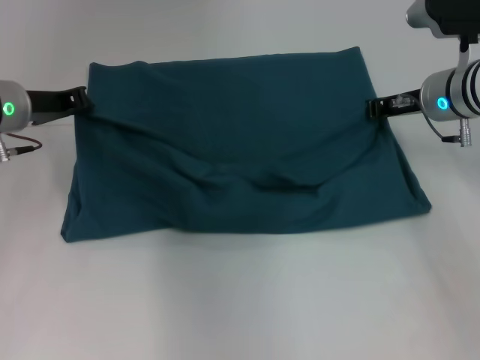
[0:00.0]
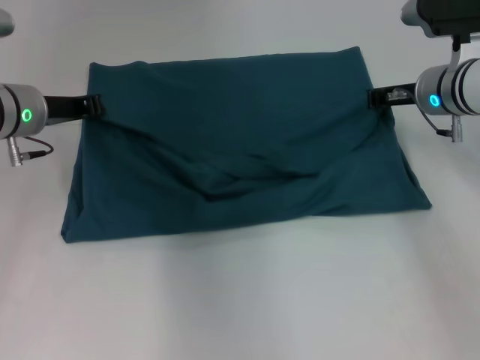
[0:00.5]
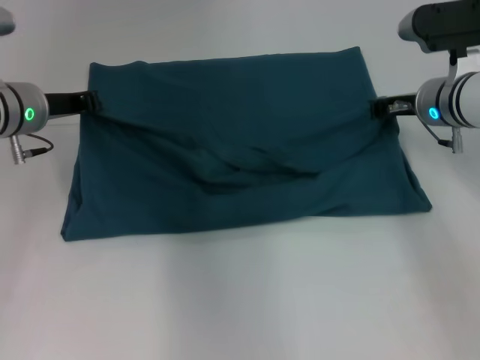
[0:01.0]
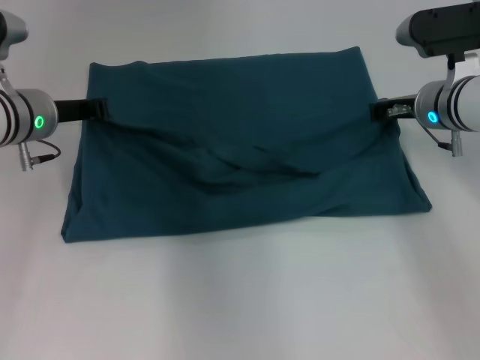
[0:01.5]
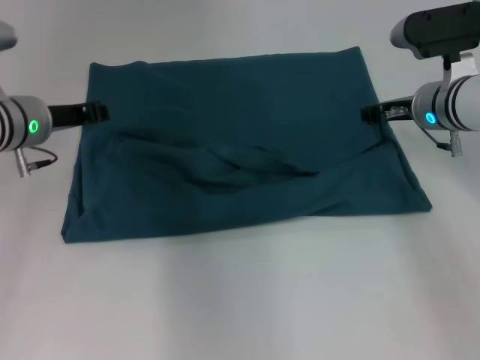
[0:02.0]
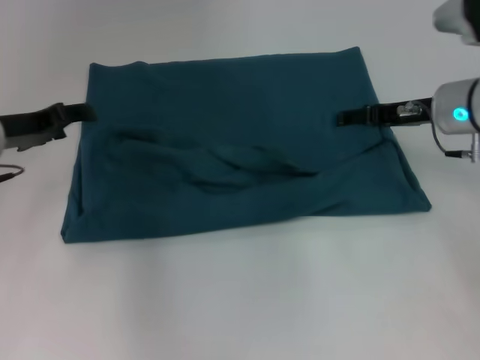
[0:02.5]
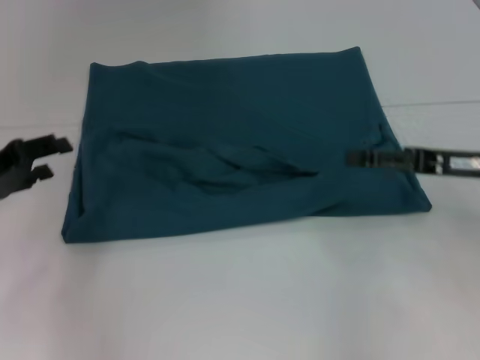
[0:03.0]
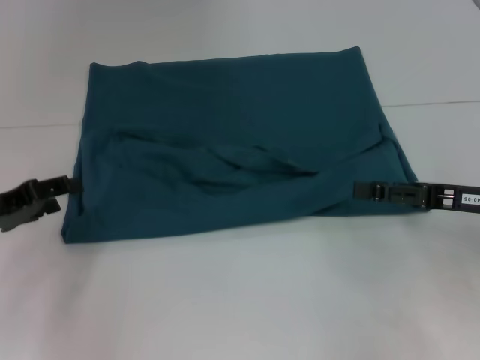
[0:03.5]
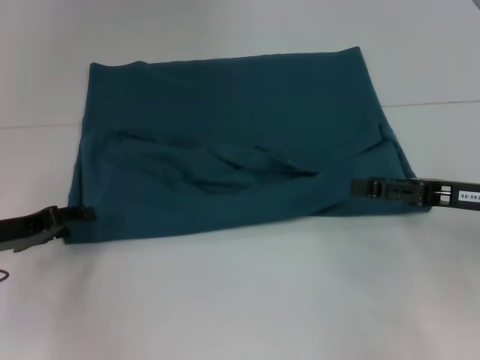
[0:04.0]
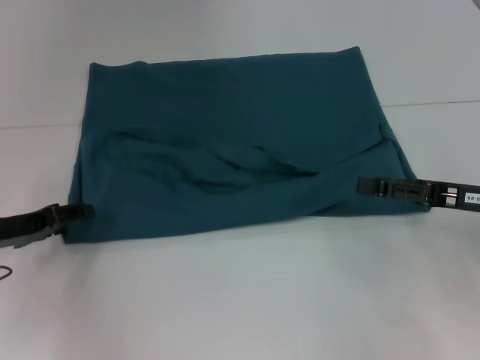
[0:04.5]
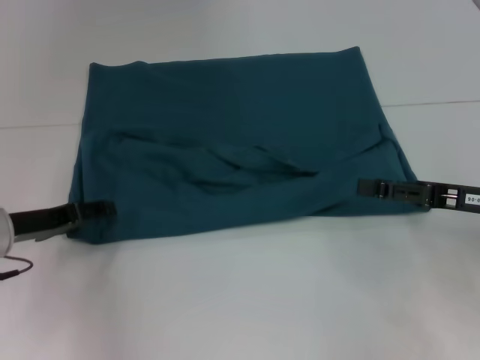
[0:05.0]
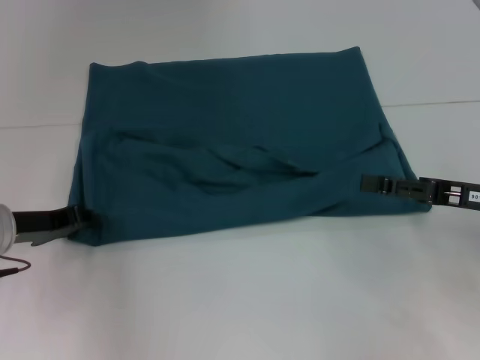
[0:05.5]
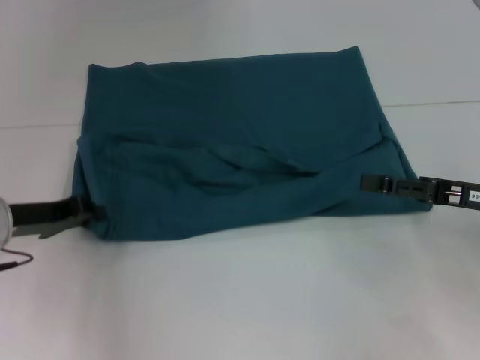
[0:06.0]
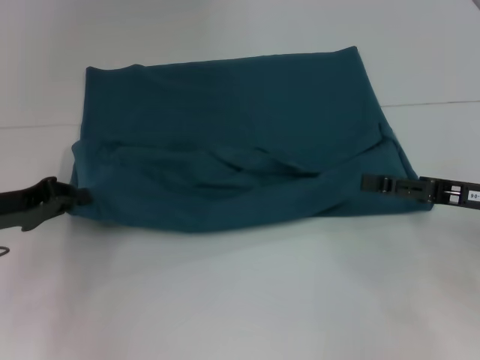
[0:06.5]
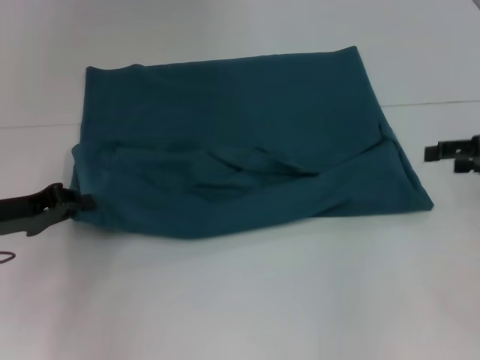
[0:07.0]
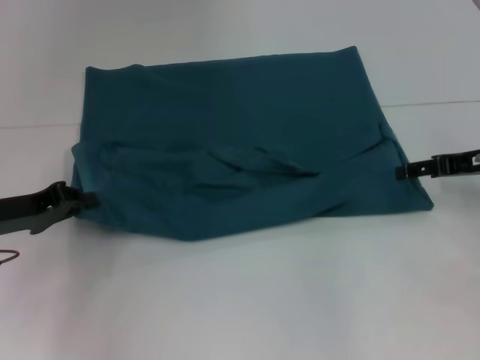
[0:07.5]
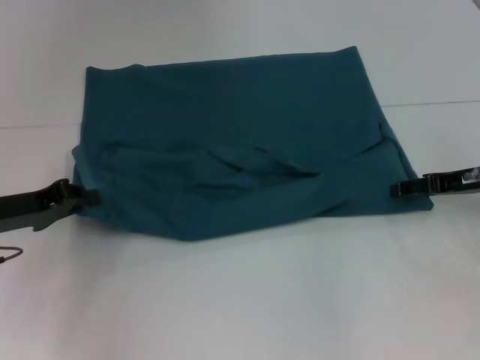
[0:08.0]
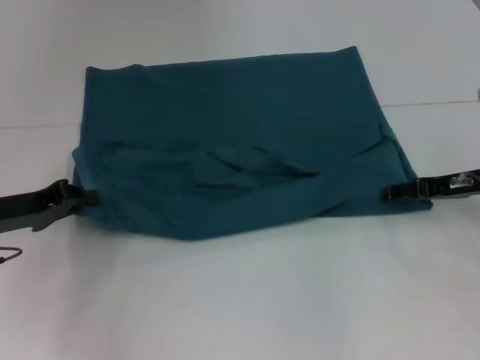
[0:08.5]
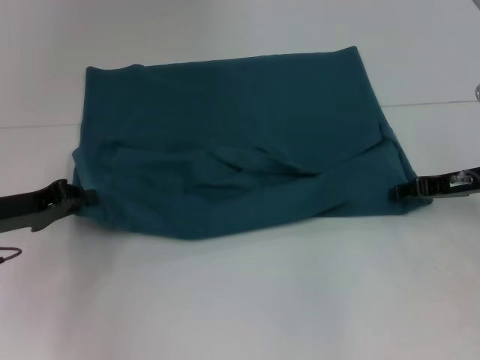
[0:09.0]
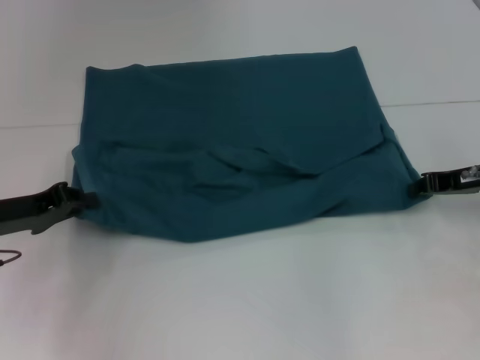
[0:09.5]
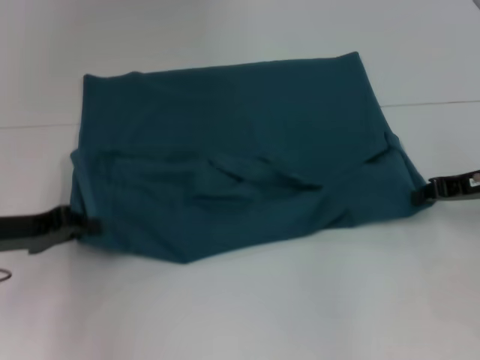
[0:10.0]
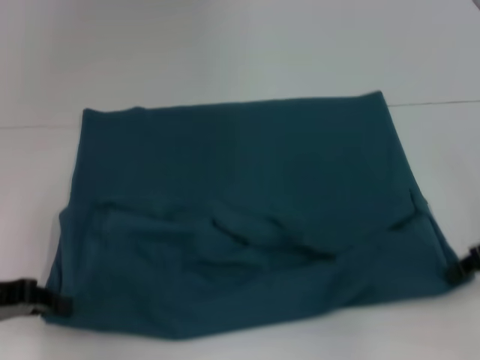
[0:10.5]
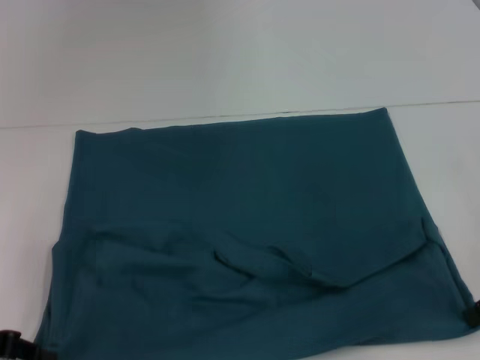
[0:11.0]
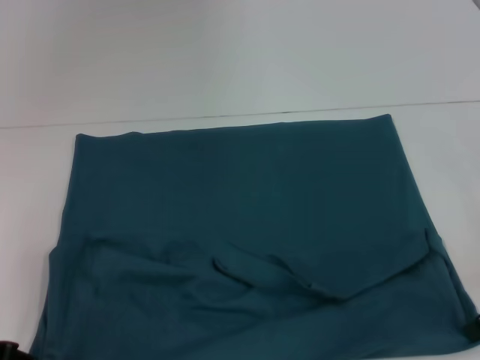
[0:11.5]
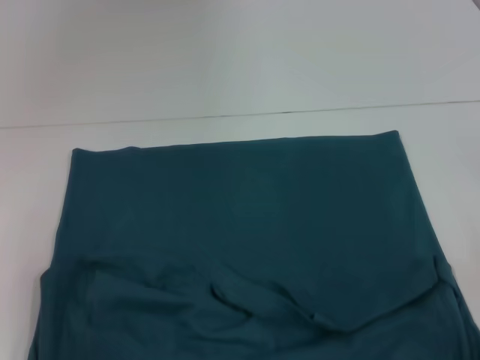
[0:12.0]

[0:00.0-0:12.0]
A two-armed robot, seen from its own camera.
Step, 0.0 to 2.0 s: Fold the clothes to the left.
Step, 0.0 to 2.0 s: Fold the clothes to the right.
0.0 to 2.0 s: The grippers move only a little.
2.0 to 4.0 s: The right gripper is displaced backward and to the right by some 15 cm, and opens. Meanwhile the left gripper shifts some 15 cm backward, to the left and downward, and opens.
4.0 to 6.0 s: The left gripper closes up.
6.0 to 8.0 s: The right gripper moves forward, about 5 cm.
8.0 to 10.0 s: The right gripper closes its fingers.
10.0 to 12.0 s: The two grippers go about 10 cm backward.

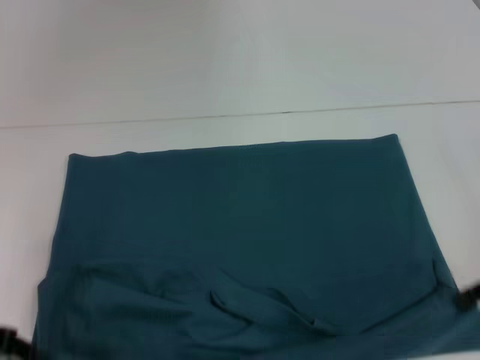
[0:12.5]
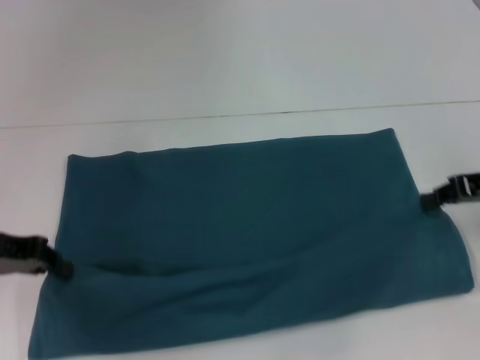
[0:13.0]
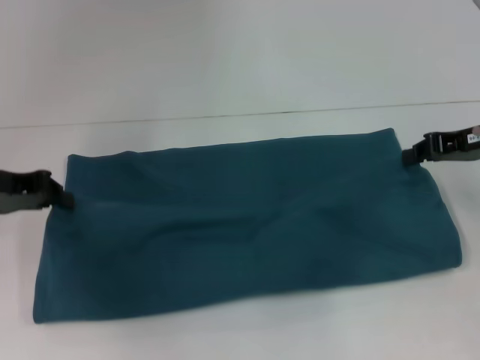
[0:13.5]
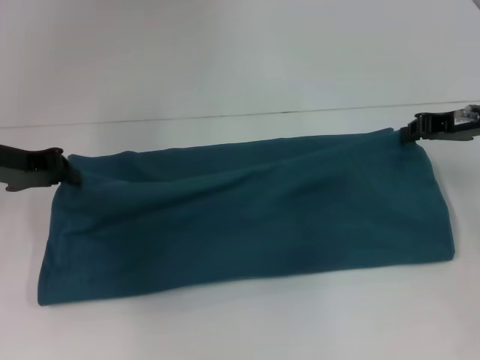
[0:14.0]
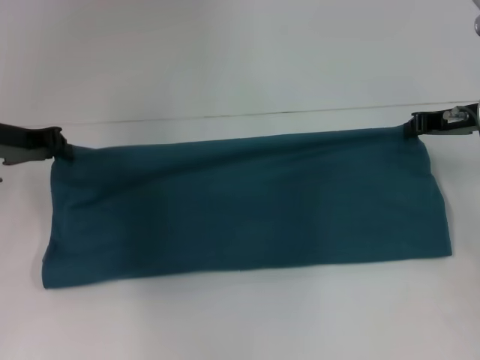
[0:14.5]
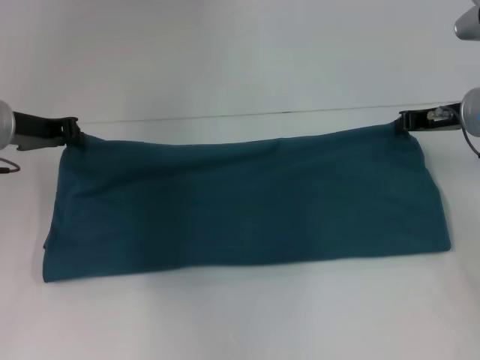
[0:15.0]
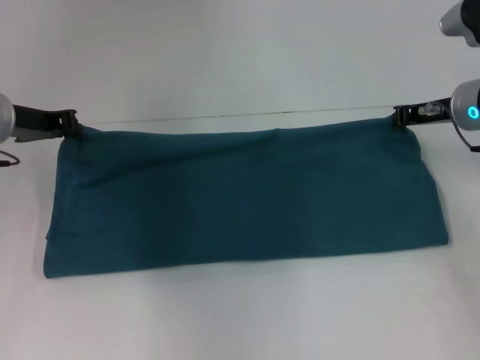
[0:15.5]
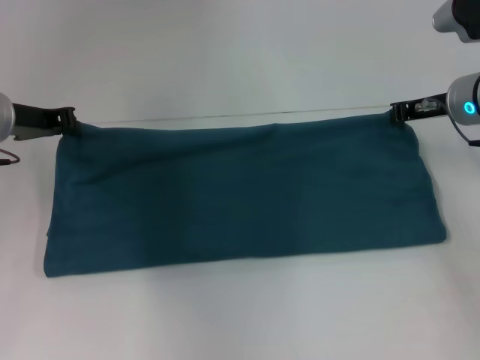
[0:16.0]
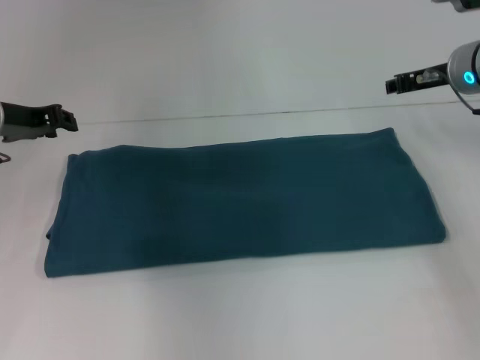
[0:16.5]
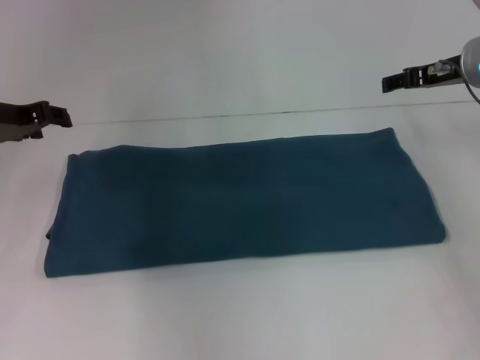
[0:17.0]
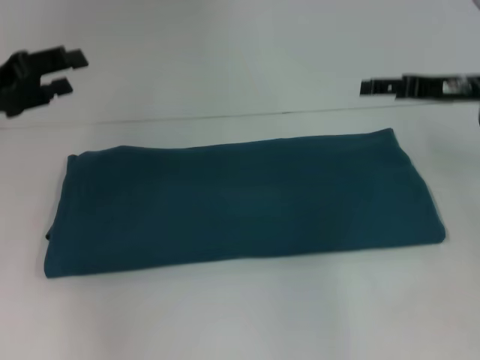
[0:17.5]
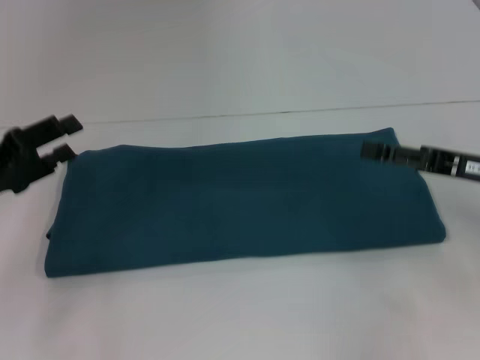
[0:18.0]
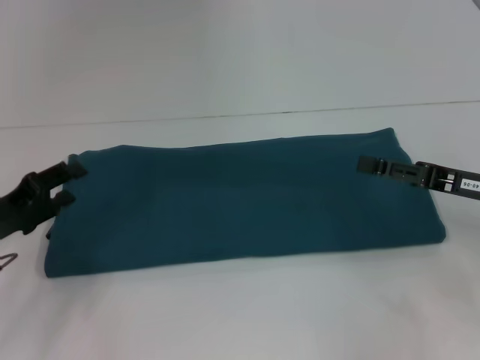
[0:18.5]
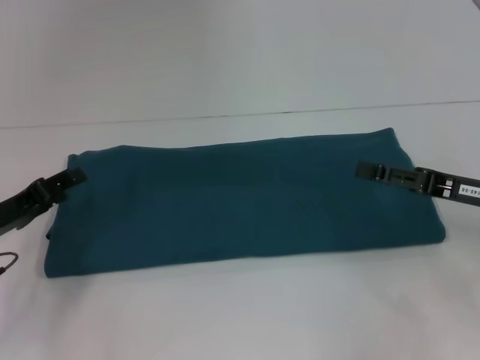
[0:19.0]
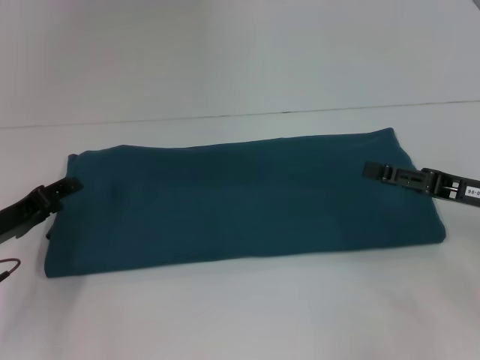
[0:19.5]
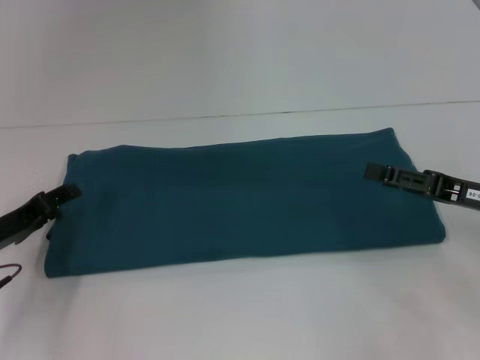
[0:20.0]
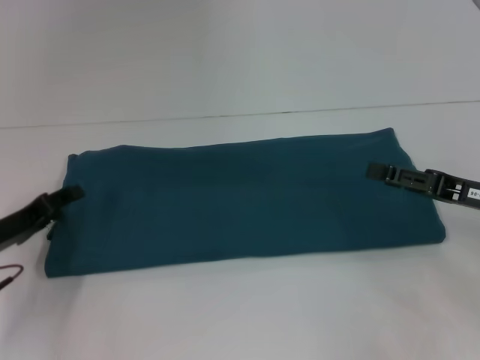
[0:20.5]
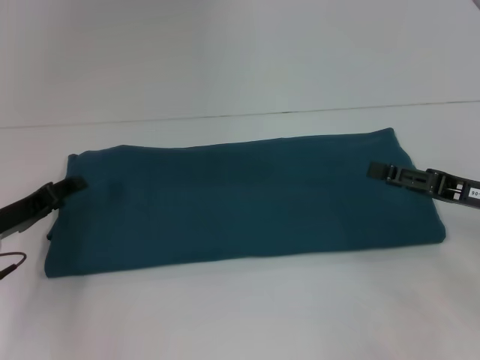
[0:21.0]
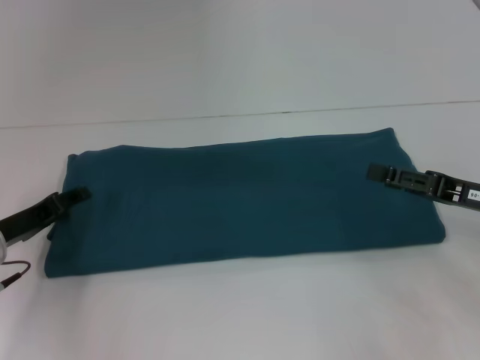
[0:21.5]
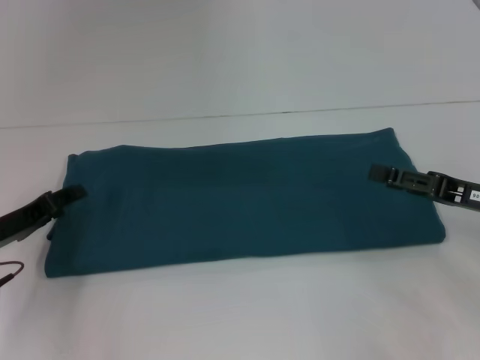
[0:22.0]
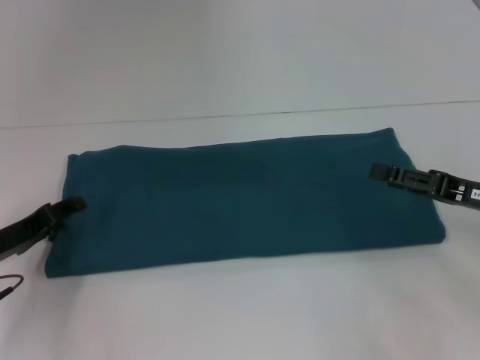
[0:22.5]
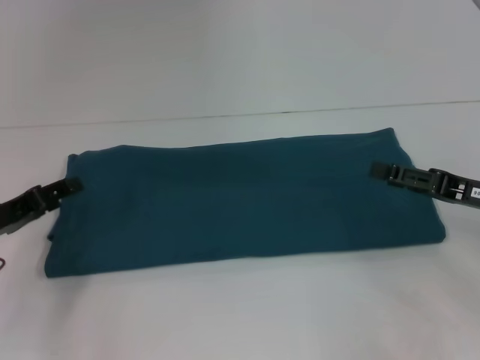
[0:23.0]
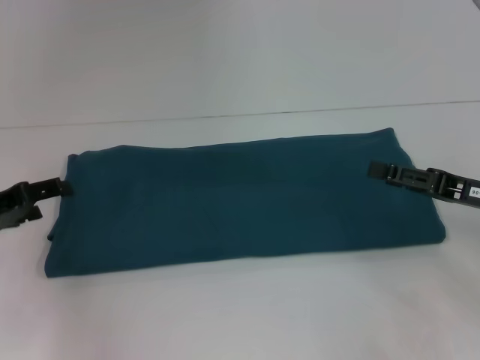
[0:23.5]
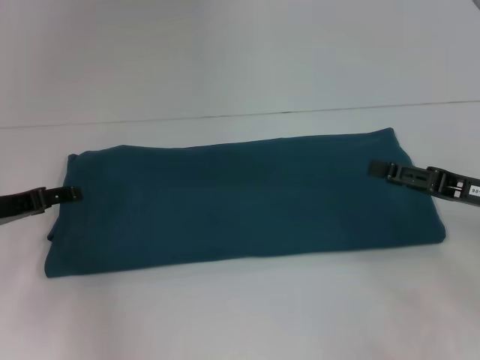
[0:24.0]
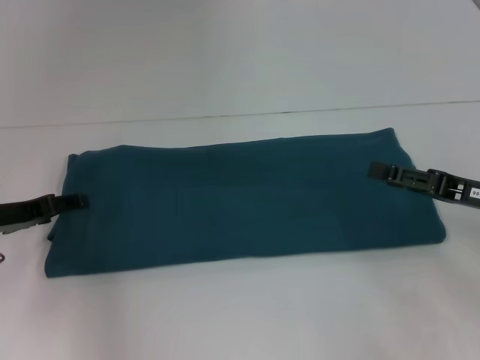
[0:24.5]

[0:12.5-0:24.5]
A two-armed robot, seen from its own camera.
Step, 12.5 to 16.0 s: Fold the clothes to the right.
12.5 to 14.5 s: The two grippers go about 15 cm forward.
14.5 to 16.5 s: The right gripper shifts by about 5 cm.
16.5 to 18.5 s: The two grippers go roughly 15 cm backward and downward. The left gripper opens up. Meanwhile the right gripper opens its fingers.
18.5 to 20.5 s: The grippers move only a little.
20.5 to 22.5 s: There are only small adjustments of the grippers.
22.5 to 24.5 s: The left gripper ends up about 5 cm from where it was.

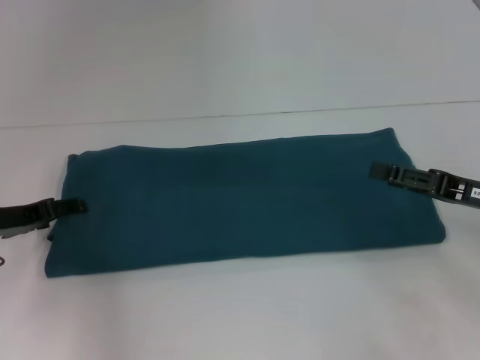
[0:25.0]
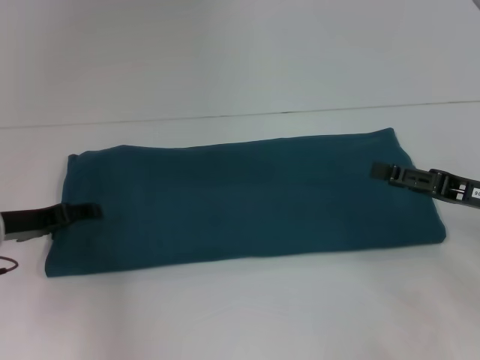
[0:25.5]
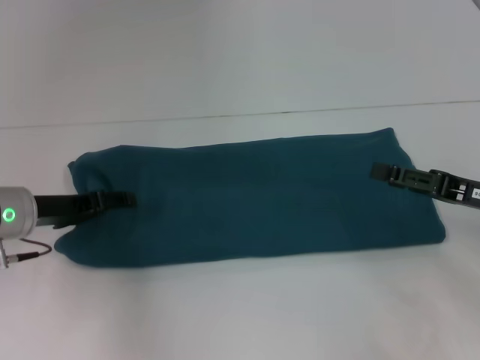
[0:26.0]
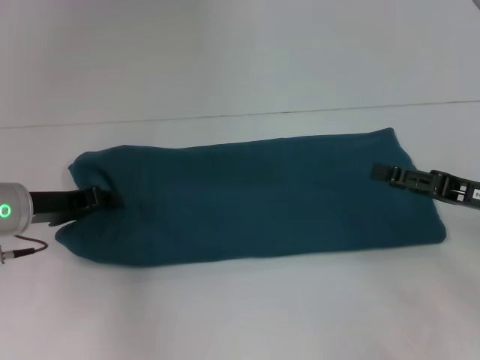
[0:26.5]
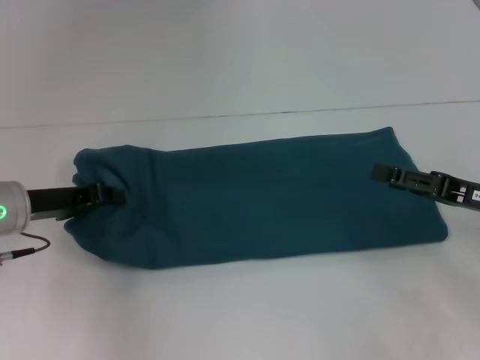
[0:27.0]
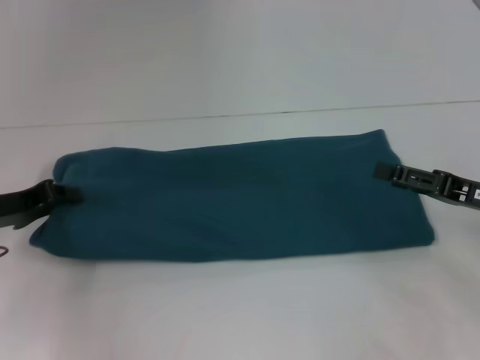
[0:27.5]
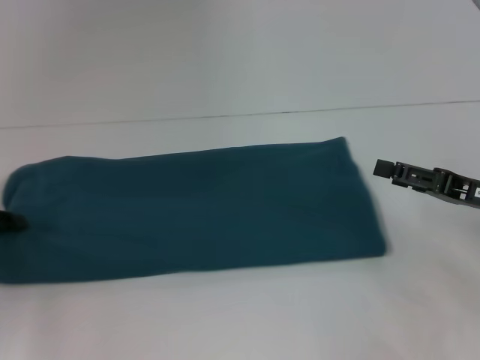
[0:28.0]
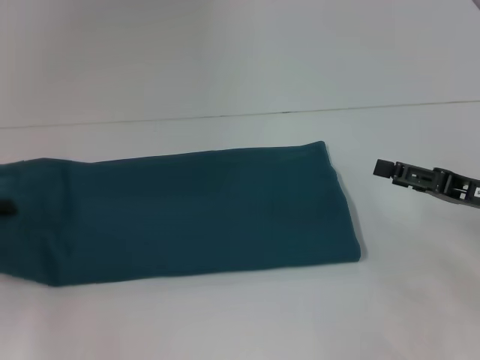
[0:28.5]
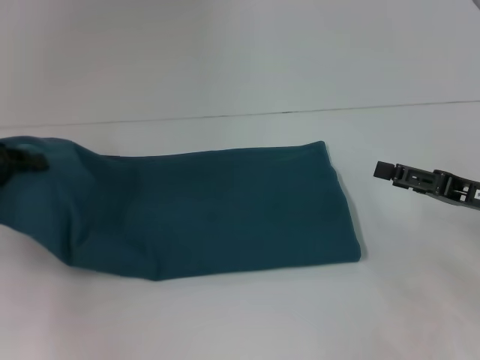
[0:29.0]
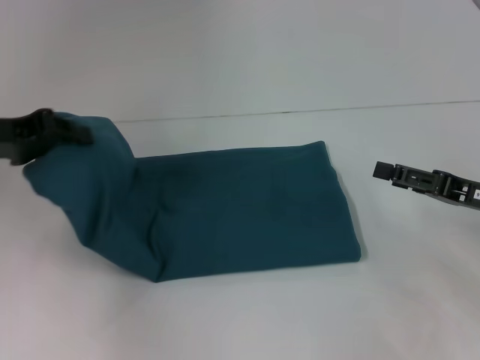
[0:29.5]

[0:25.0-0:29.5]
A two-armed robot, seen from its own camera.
25.0 to 27.0 s: The left gripper closes.
27.0 to 29.5 s: The left gripper shifts roughly 10 cm upward.
